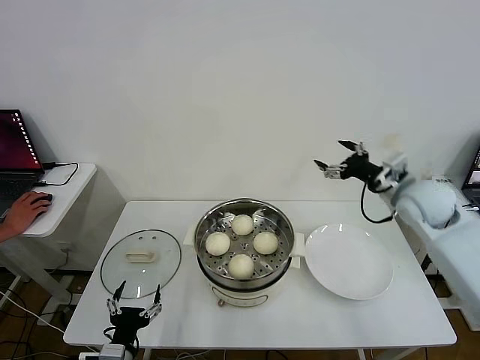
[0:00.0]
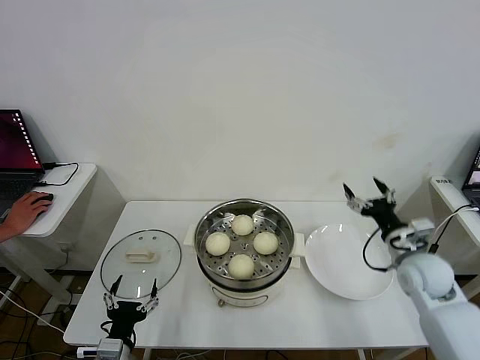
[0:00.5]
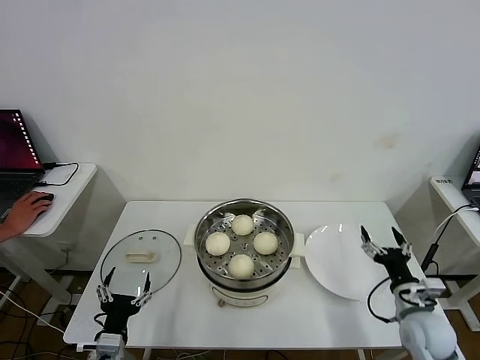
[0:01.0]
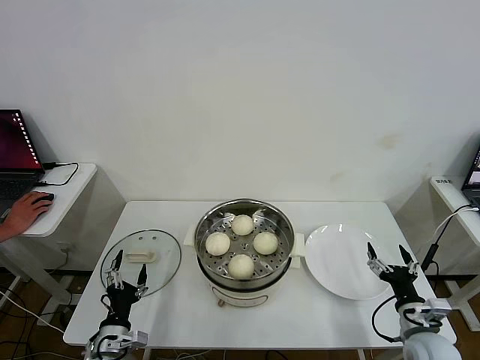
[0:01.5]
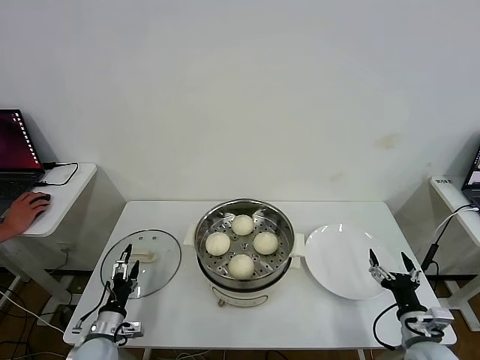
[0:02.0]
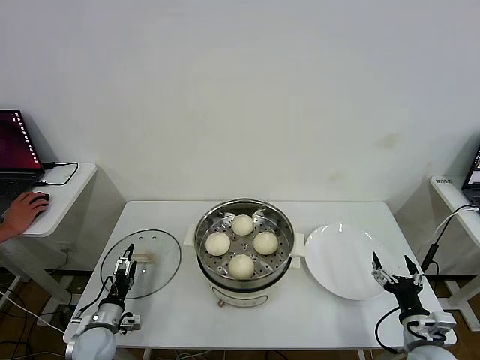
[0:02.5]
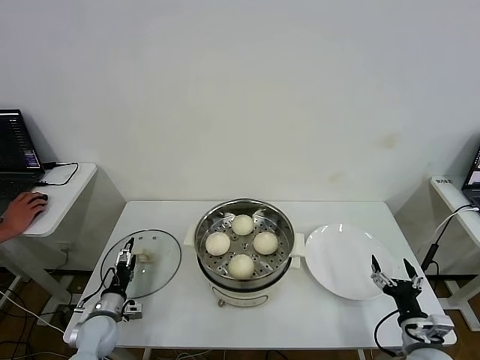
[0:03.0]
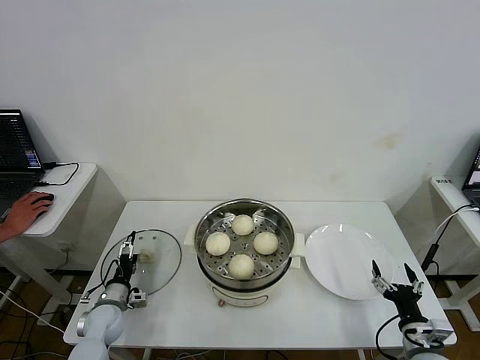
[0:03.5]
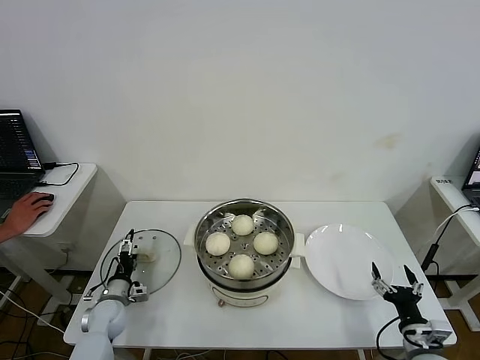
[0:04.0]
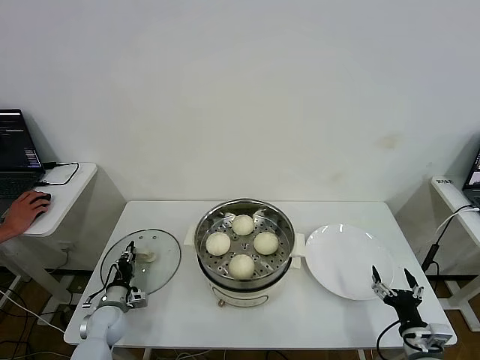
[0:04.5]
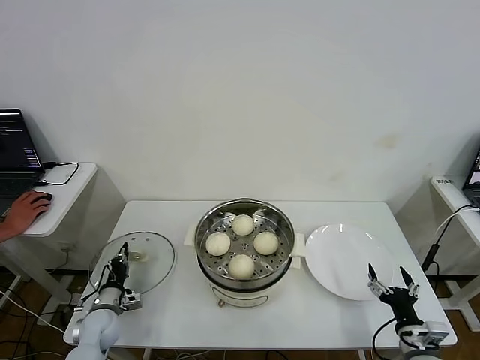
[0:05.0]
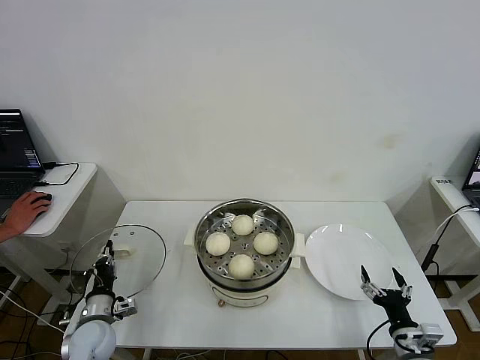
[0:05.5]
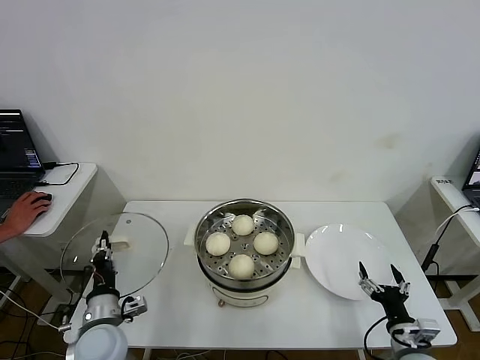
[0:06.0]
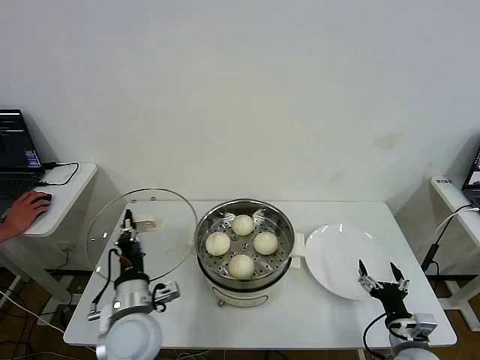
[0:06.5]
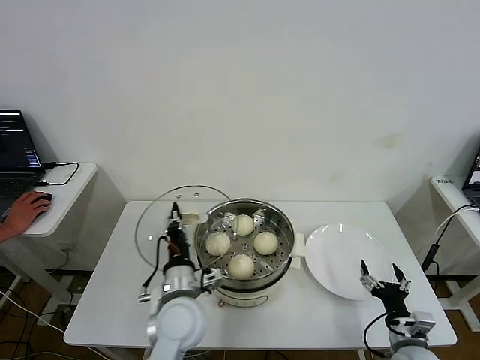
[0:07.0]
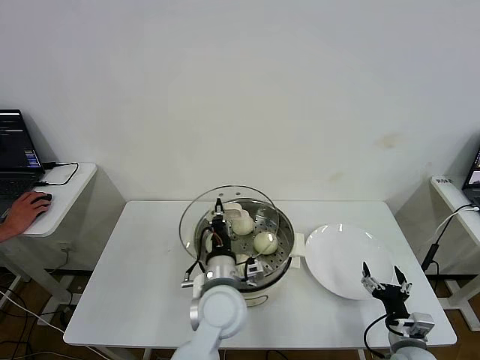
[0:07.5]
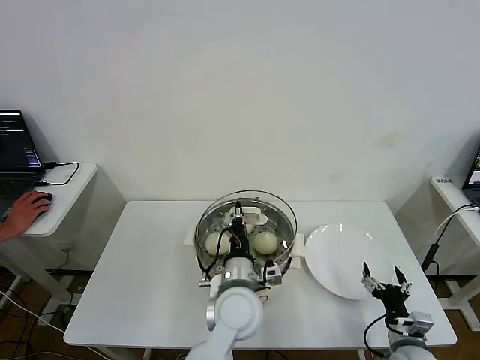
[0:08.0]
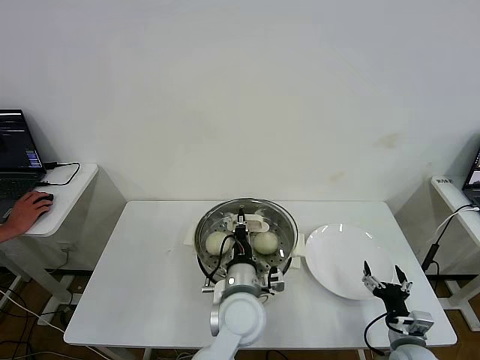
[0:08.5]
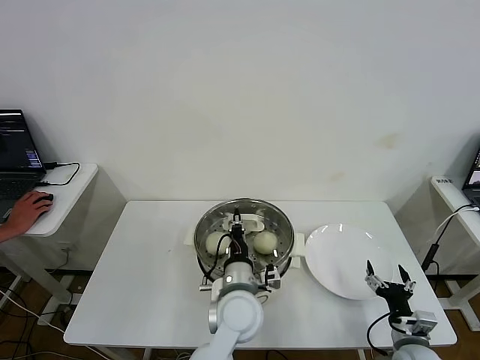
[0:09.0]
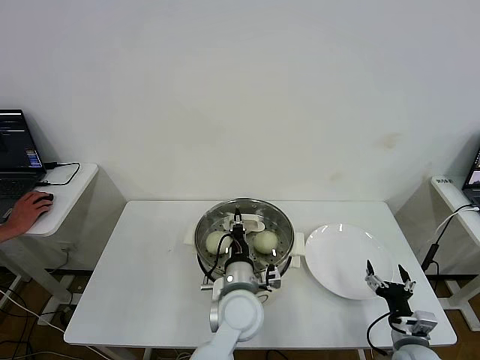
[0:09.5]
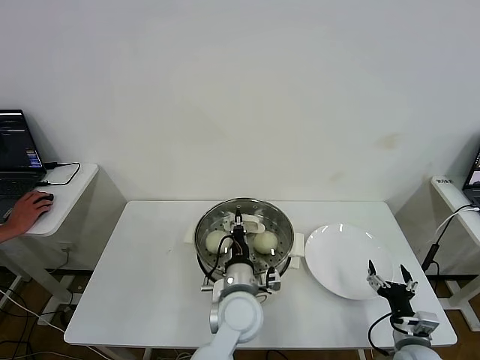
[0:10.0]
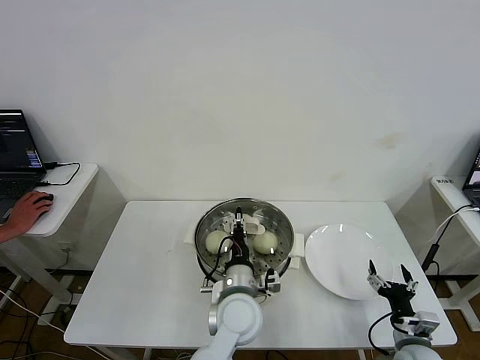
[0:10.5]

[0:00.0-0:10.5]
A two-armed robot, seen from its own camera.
Step, 0:00.0 to 0:04.5: Grasp the pot lid with left gripper.
Step, 0:05.0 to 0:10.5: Place the pot lid on the steamer with left gripper.
0:00.0 to 0:02.0: The right gripper heads backward and downward, covering roughly 30 cm; the left gripper goes roughly 15 cm forward, to the left and downward.
0:02.0 to 0:04.0: The left gripper moves forward, some 10 cm.
0:04.0 to 0:06.5: The left gripper shifts approximately 25 cm upward, to the right and backward, and closes.
0:06.5 to 0:08.5: The left gripper goes roughly 20 cm to the right.
0:08.5 to 0:10.5: The grippers move only a little.

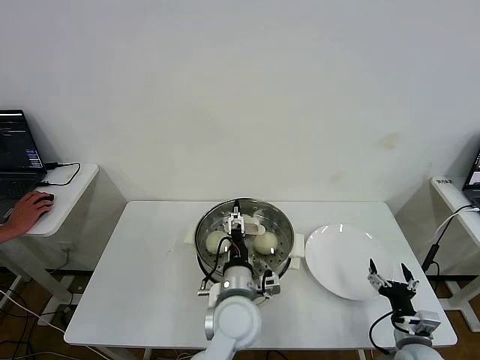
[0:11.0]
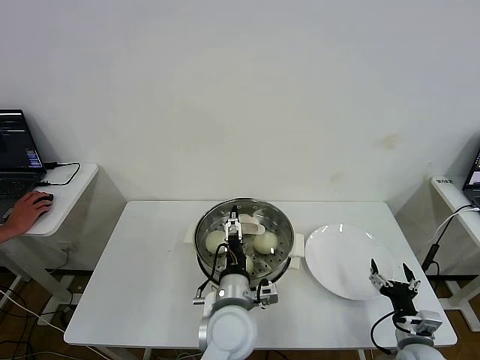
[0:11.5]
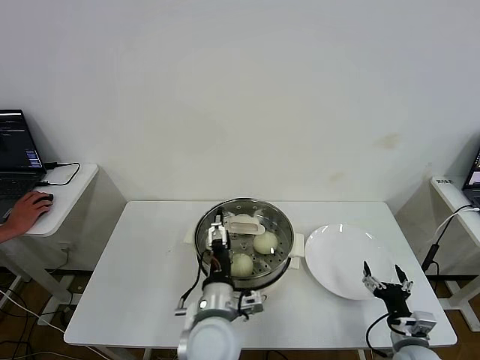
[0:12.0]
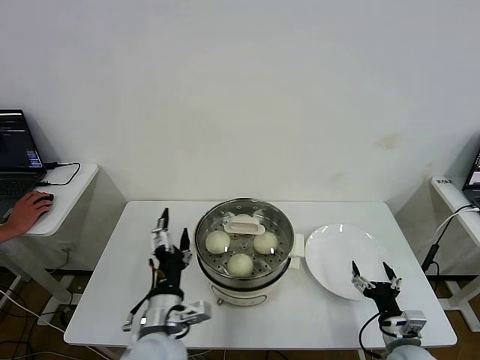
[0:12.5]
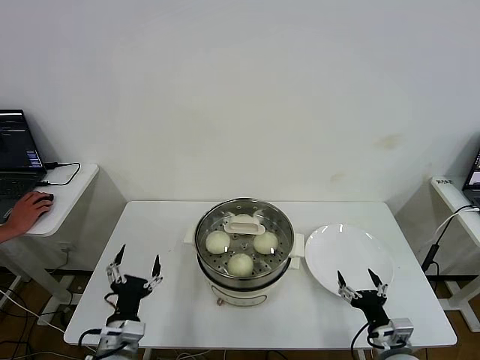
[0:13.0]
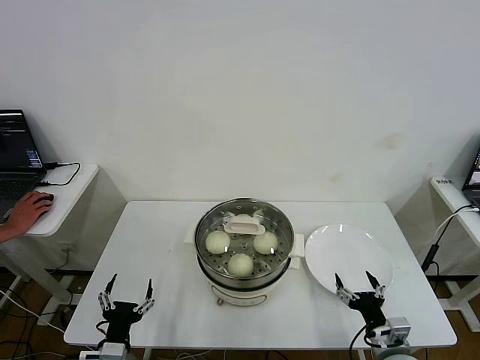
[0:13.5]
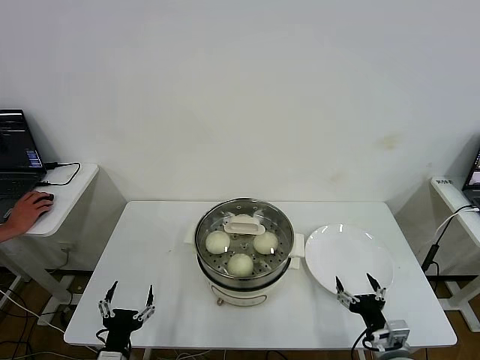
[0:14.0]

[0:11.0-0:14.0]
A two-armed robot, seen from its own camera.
0:11.0 to 0:12.5: The left gripper goes approximately 15 cm to the left and backward.
0:12.5 to 0:14.0: The left gripper shifts roughly 20 cm to the left, downward and backward.

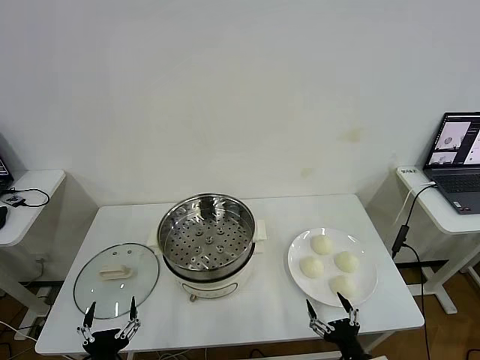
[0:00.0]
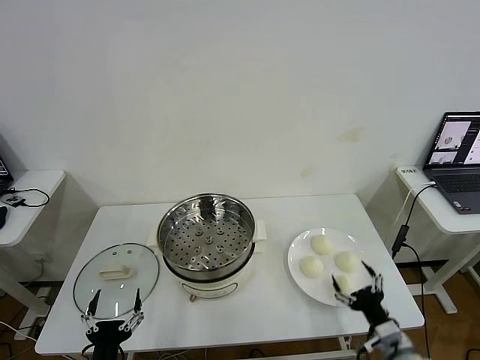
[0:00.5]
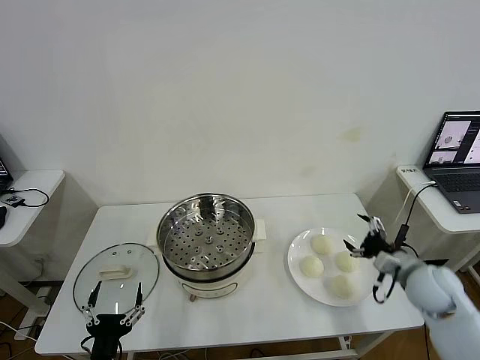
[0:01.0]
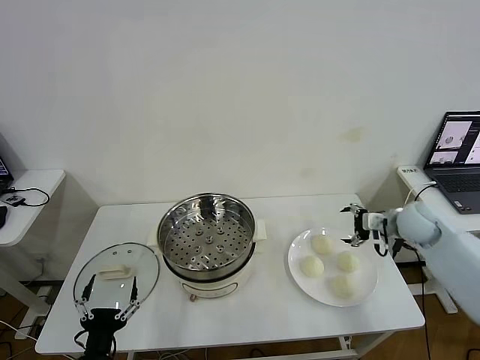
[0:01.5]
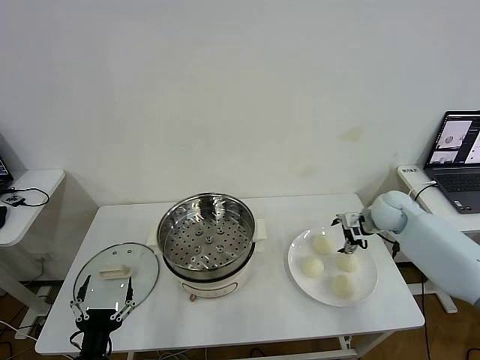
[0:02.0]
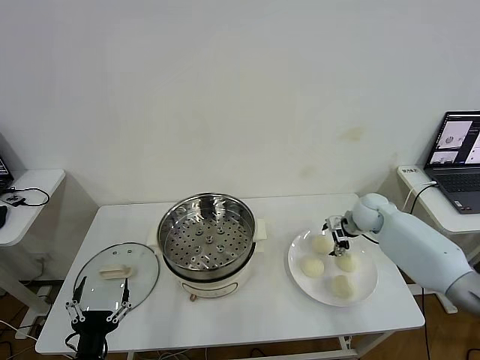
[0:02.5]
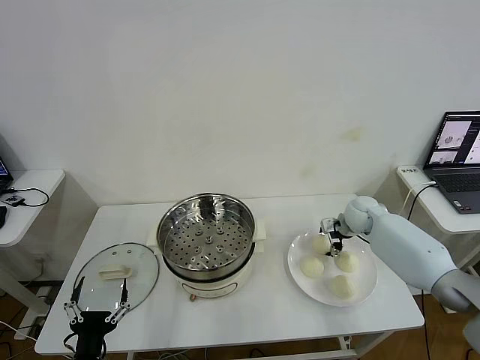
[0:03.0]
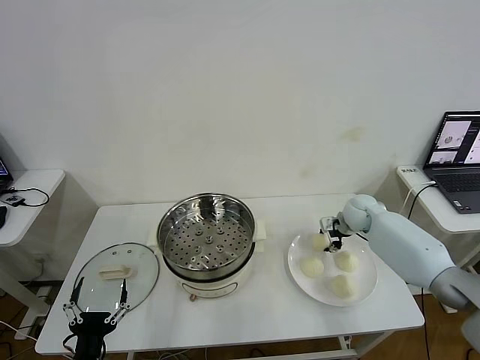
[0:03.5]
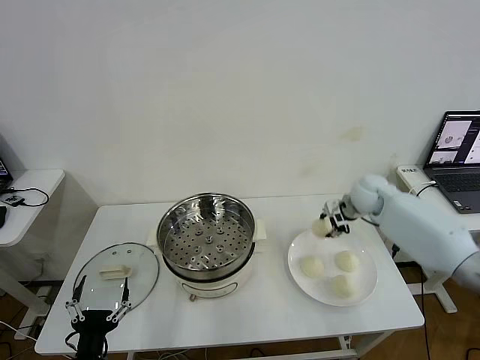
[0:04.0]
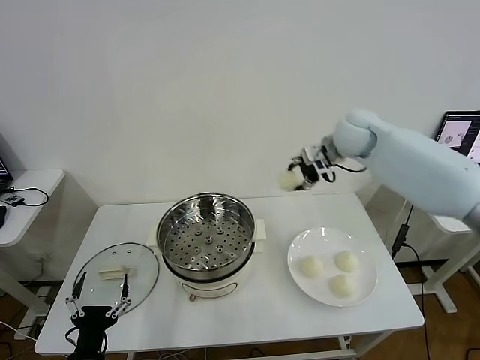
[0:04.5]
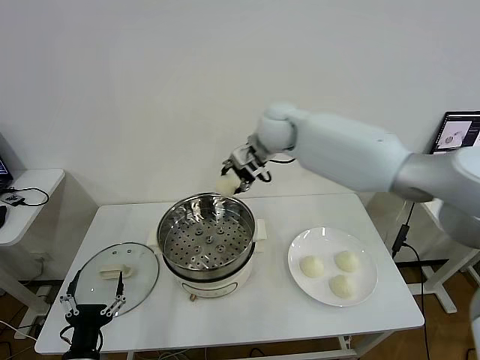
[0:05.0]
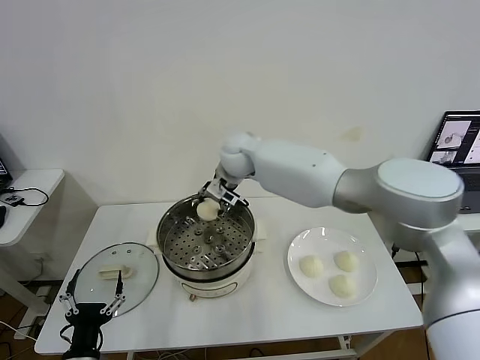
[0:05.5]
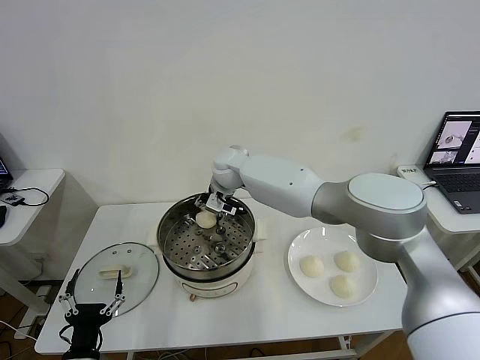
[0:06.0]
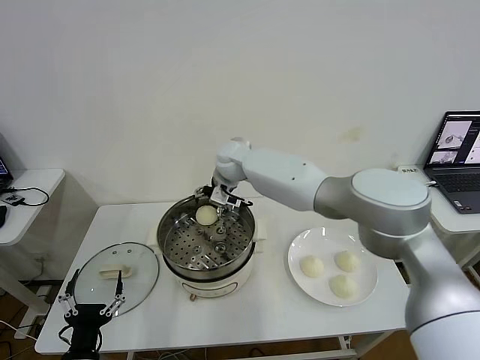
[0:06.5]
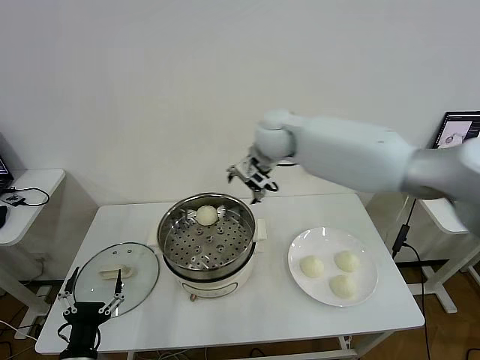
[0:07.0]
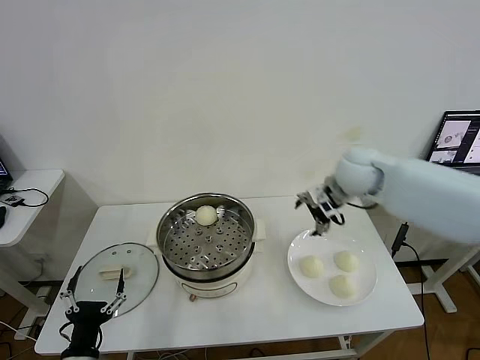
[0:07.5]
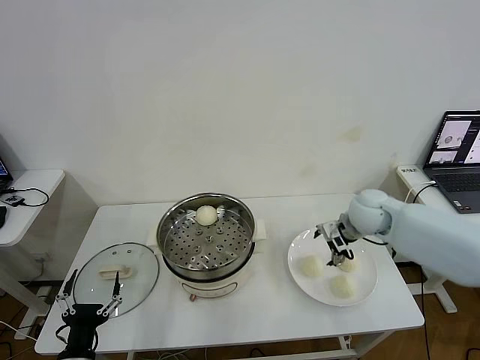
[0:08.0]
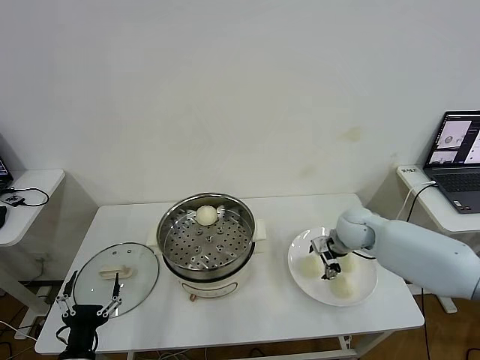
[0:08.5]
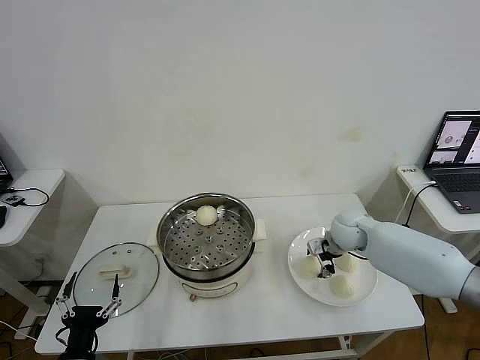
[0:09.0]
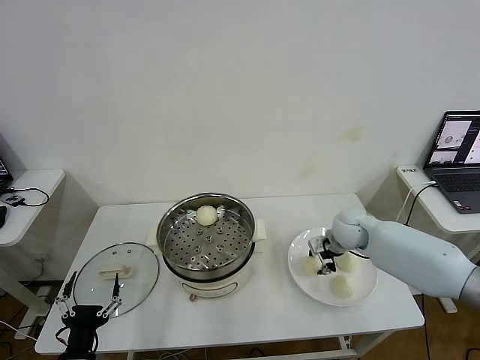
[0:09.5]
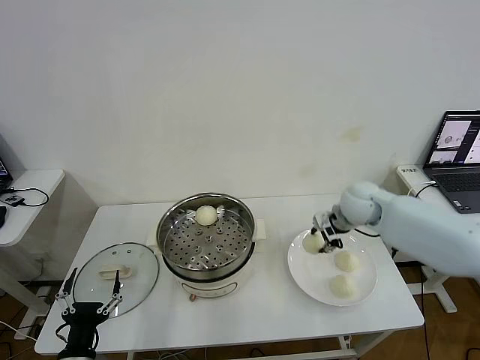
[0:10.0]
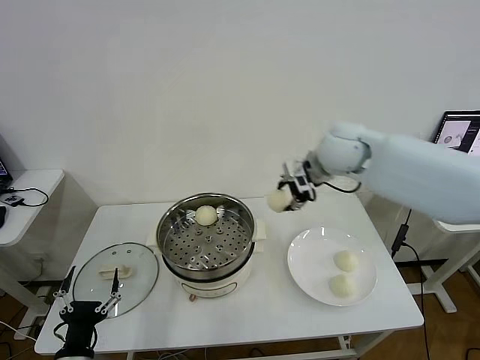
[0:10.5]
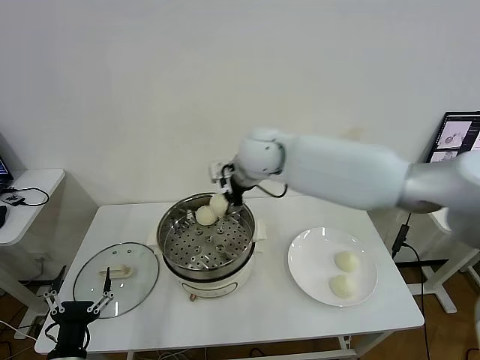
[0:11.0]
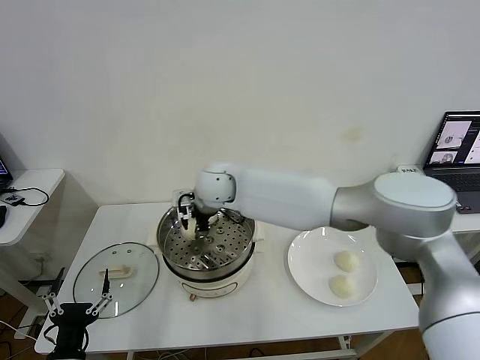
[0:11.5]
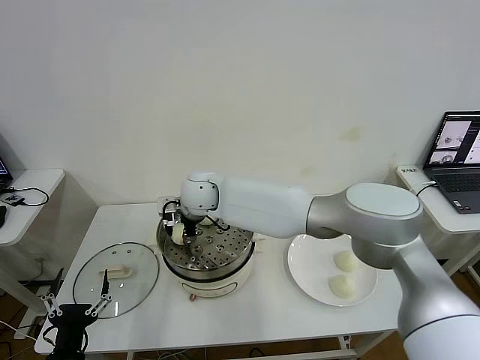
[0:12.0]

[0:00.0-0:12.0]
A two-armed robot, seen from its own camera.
Step, 0:00.0 to 0:03.0: Grasp the baozi in the plate with right gripper.
Step, 0:03.5 to 0:06.0: Place the baozi on the steamer with right gripper.
Step, 0:06.5 to 0:09.0: Grasp the baozi in the plate with right gripper.
0:02.0 to 0:04.0: The right gripper travels upward by roughly 5 cm, and closes up.
0:04.0 to 0:06.0: The right gripper moves to the left, roughly 35 cm.
0:06.0 to 0:08.0: The right gripper travels to the right by roughly 30 cm, and opens up.
0:08.0 to 0:10.0: The right gripper changes place by some 5 cm, and closes up.
0:10.0 to 0:12.0: The right gripper is displaced to the left by about 35 cm.
